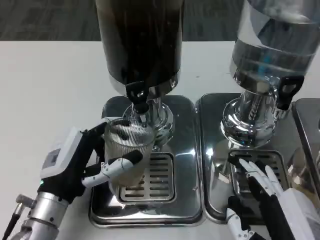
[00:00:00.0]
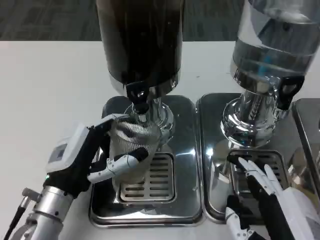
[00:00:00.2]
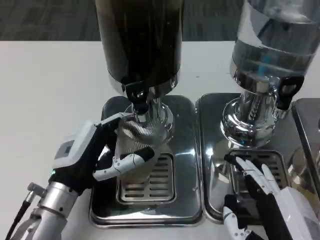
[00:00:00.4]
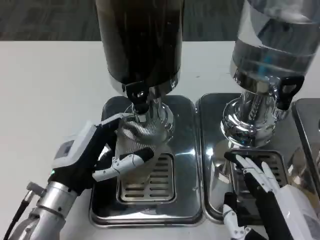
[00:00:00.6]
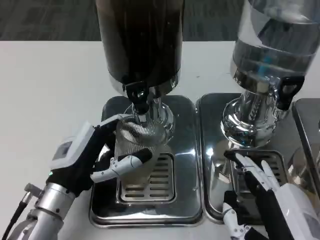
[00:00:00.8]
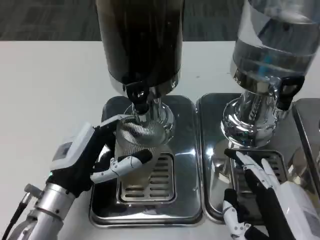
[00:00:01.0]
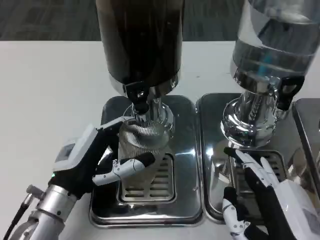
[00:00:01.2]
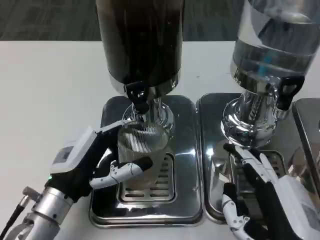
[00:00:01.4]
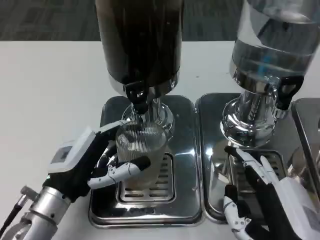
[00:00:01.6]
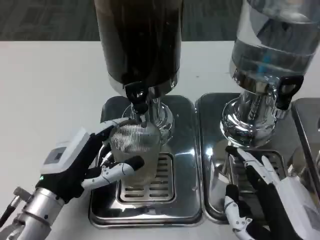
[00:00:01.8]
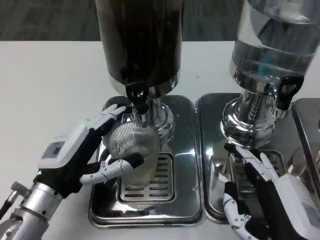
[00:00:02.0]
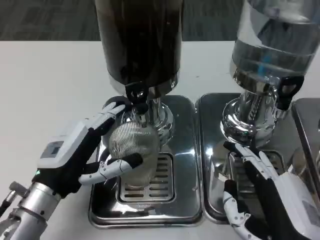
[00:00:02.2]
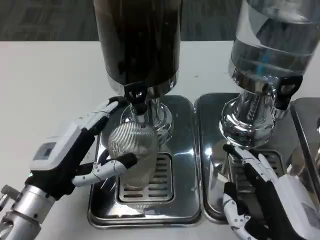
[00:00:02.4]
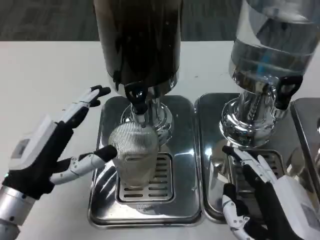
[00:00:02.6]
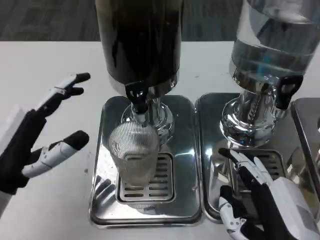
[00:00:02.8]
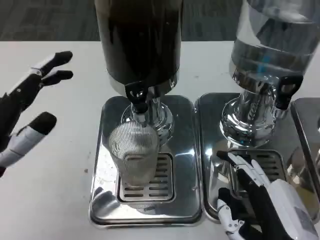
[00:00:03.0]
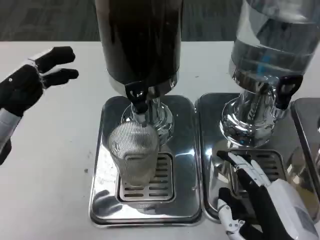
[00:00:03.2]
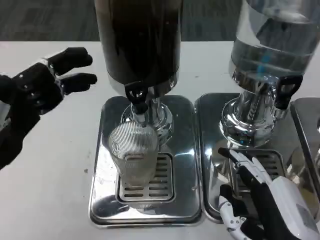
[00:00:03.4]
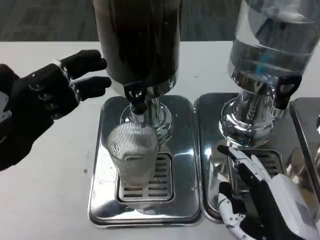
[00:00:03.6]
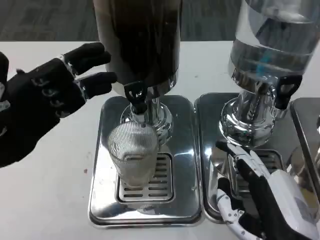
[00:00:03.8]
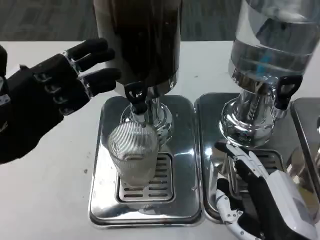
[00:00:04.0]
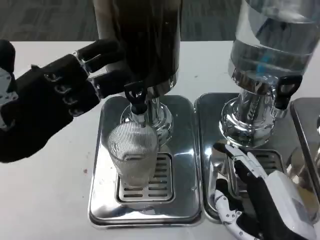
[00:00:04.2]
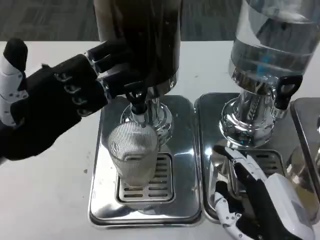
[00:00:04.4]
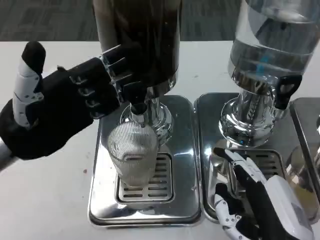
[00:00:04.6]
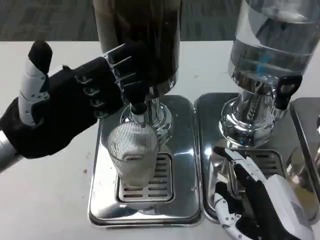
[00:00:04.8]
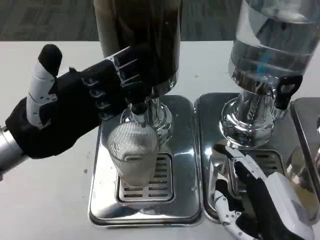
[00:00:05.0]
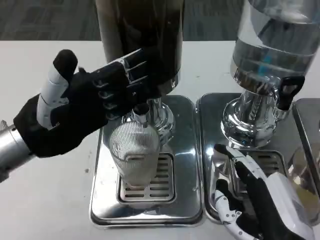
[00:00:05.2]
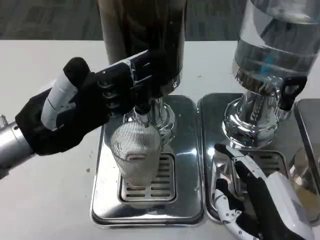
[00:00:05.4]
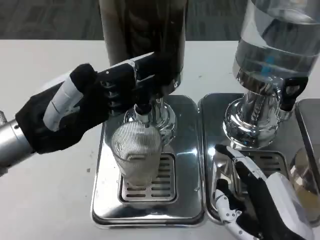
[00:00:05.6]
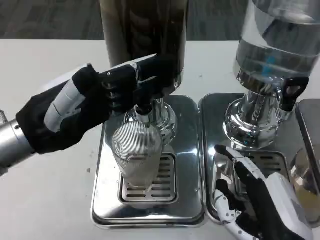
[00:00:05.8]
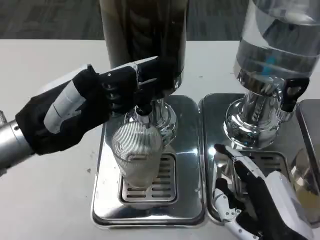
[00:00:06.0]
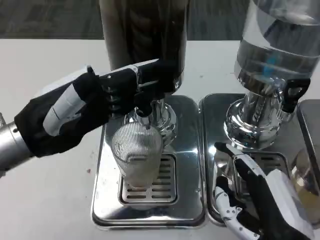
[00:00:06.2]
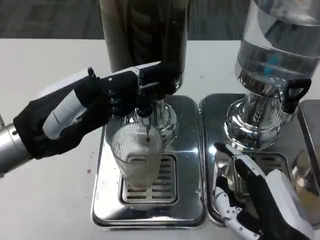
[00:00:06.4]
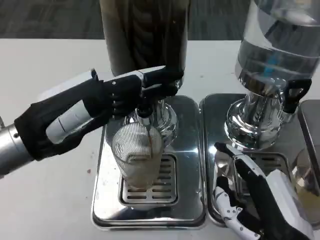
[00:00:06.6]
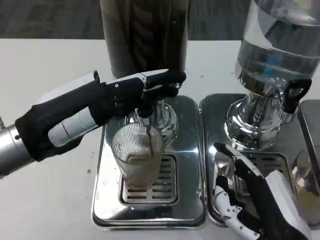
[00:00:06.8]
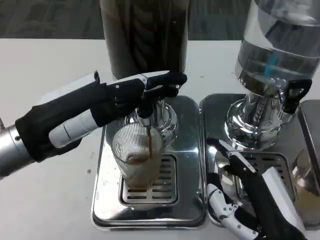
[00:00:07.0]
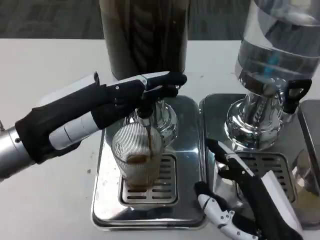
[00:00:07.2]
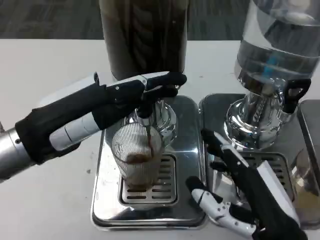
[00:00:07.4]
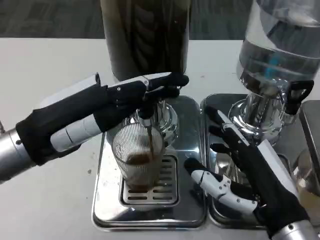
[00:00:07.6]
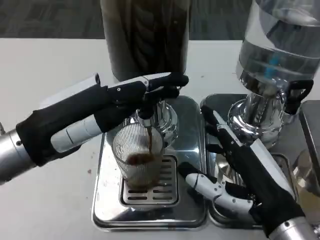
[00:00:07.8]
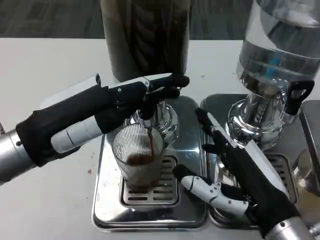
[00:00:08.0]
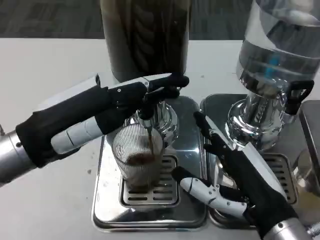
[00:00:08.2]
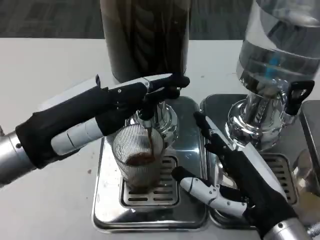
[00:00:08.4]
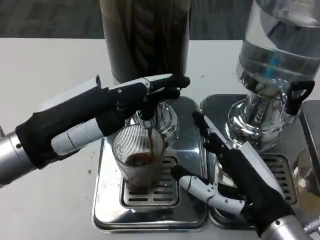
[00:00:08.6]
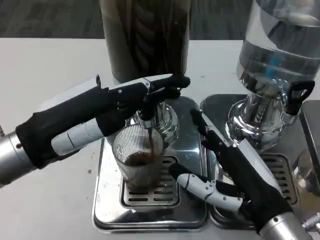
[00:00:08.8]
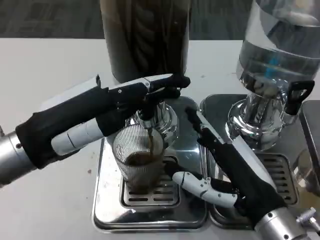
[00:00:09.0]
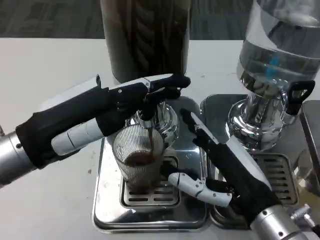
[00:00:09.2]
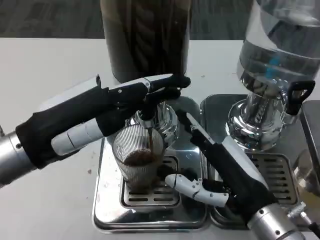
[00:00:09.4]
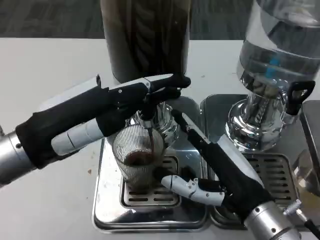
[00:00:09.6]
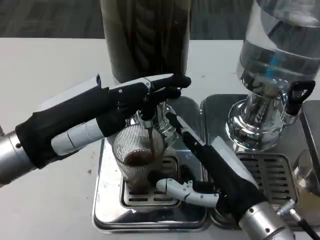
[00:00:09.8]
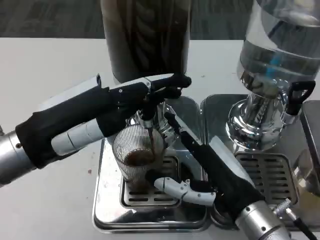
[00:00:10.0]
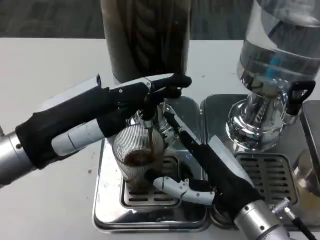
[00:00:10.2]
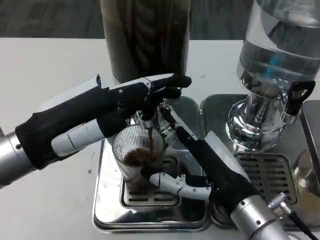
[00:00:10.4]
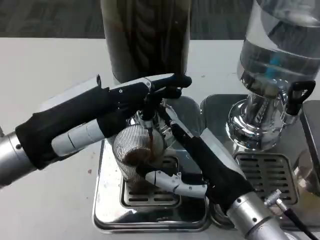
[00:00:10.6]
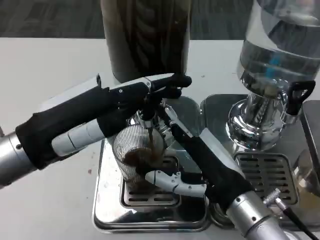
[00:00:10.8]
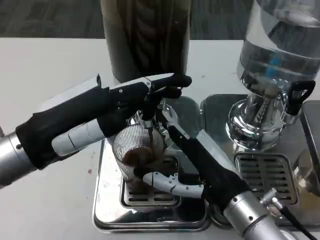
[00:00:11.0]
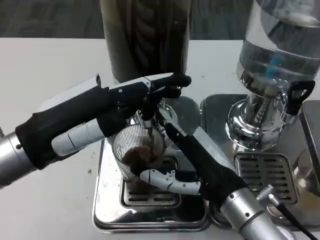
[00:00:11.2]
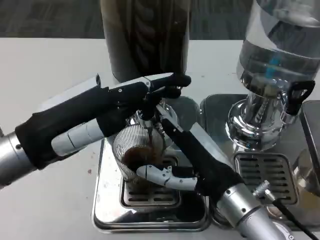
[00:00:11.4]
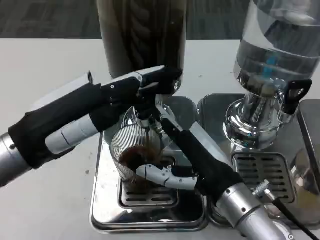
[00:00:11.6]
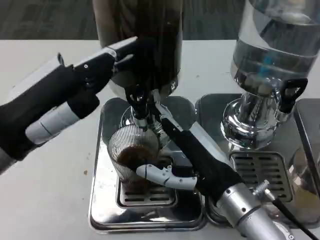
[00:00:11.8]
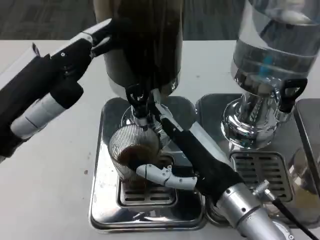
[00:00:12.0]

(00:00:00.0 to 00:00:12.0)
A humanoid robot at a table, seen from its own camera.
Task of the whole recording: Grasp the cup under the faucet to collect the drink, then remove the cup.
00:00:00.0 - 00:00:01.6: The hands stay close to where they were, moving slightly.
00:00:01.6 - 00:00:03.0: The left hand goes some 10 cm upward and to the left.
00:00:03.0 - 00:00:04.4: The left hand goes roughly 5 cm forward.
00:00:07.6 - 00:00:10.4: There are only small adjustments of the hands.

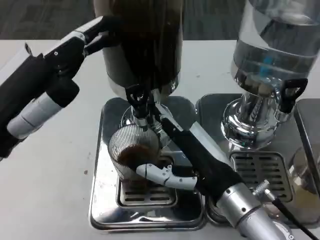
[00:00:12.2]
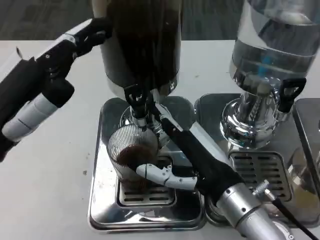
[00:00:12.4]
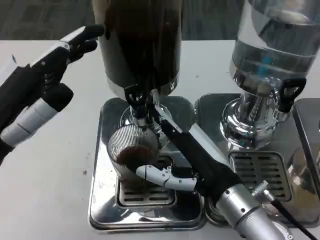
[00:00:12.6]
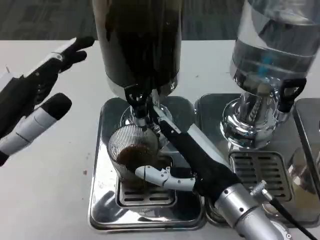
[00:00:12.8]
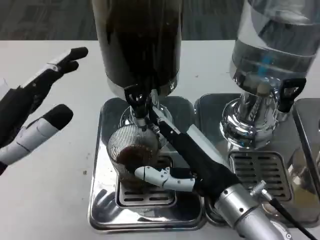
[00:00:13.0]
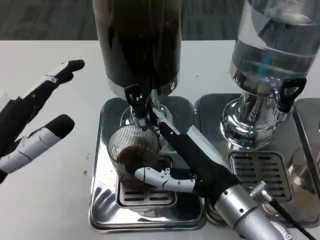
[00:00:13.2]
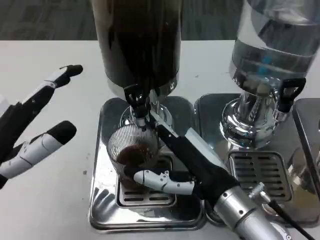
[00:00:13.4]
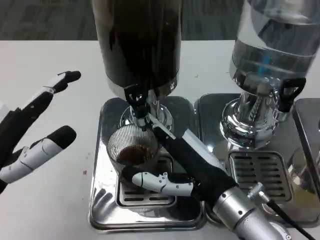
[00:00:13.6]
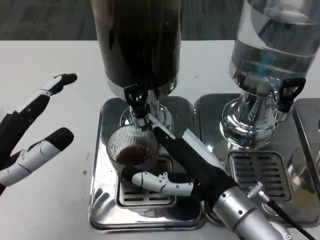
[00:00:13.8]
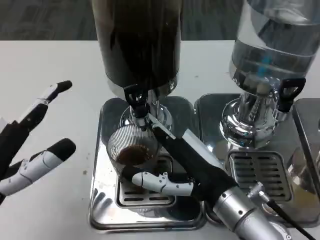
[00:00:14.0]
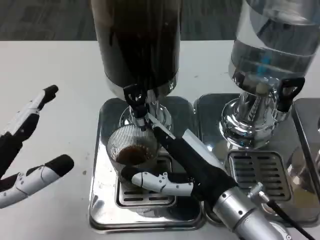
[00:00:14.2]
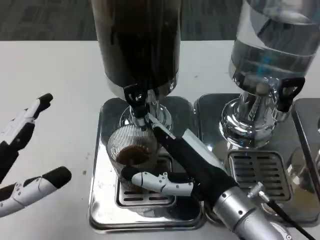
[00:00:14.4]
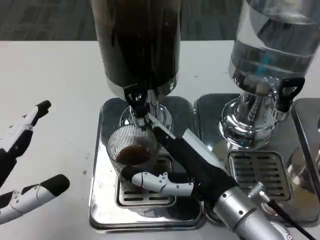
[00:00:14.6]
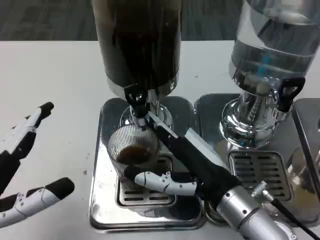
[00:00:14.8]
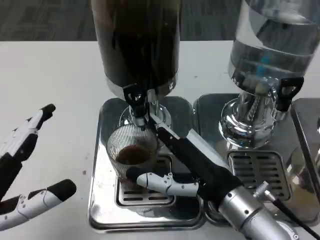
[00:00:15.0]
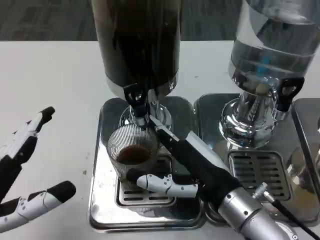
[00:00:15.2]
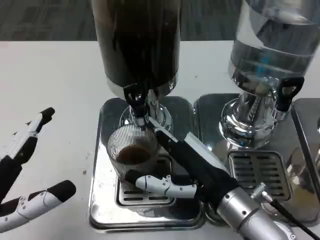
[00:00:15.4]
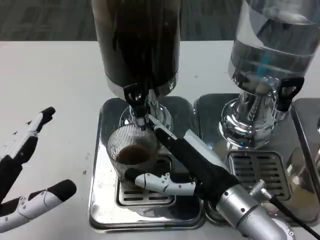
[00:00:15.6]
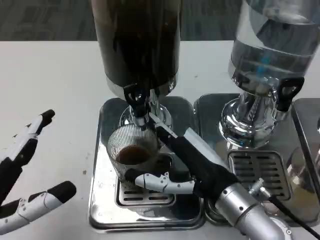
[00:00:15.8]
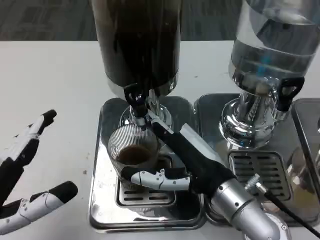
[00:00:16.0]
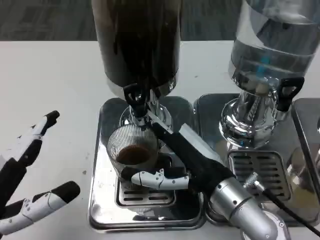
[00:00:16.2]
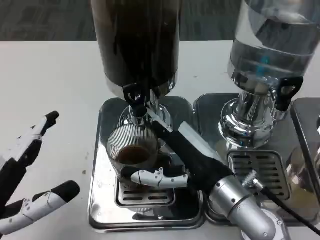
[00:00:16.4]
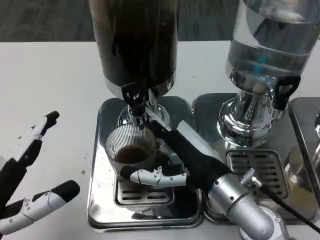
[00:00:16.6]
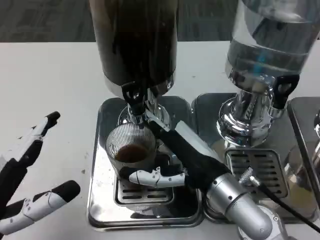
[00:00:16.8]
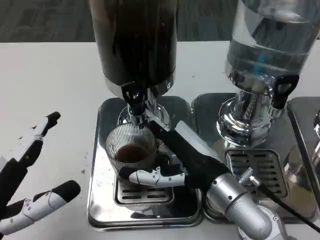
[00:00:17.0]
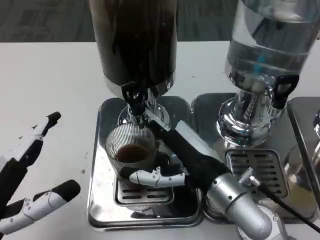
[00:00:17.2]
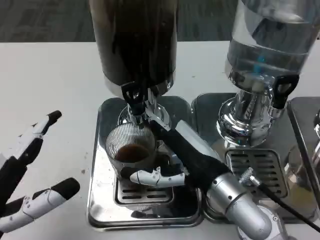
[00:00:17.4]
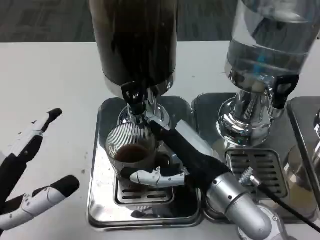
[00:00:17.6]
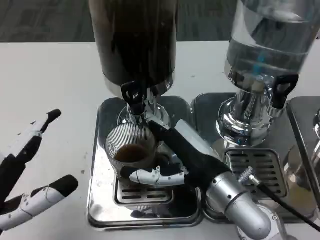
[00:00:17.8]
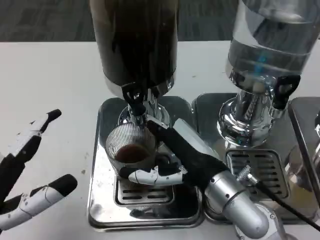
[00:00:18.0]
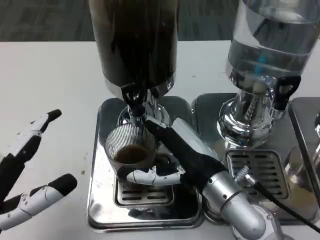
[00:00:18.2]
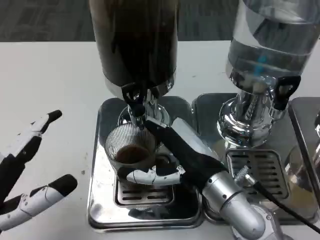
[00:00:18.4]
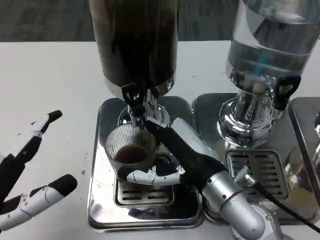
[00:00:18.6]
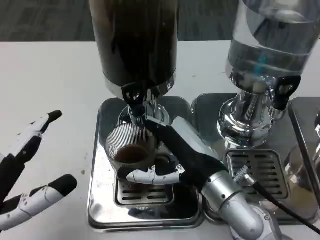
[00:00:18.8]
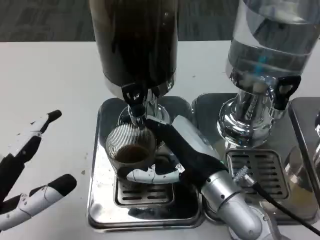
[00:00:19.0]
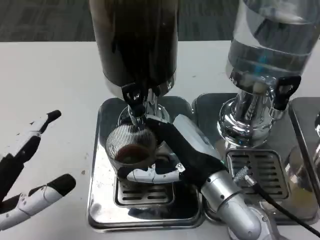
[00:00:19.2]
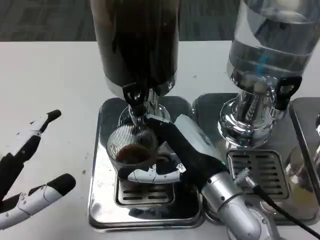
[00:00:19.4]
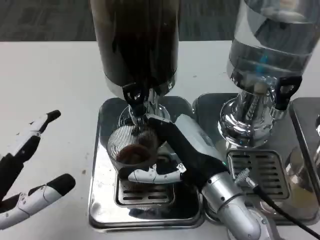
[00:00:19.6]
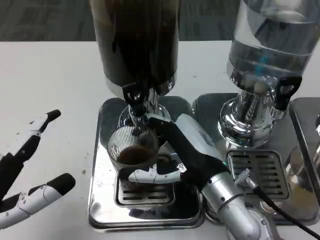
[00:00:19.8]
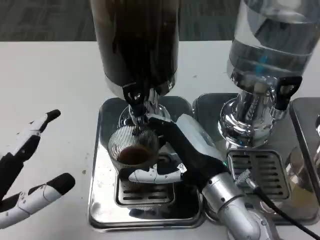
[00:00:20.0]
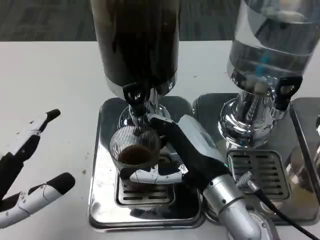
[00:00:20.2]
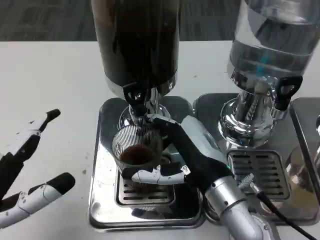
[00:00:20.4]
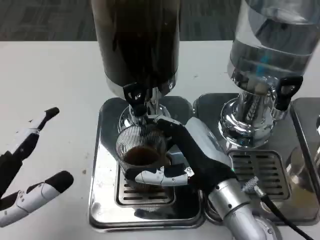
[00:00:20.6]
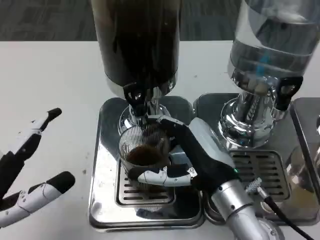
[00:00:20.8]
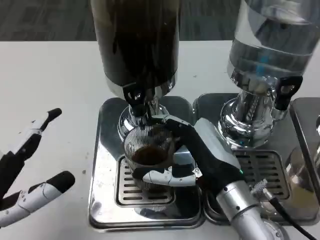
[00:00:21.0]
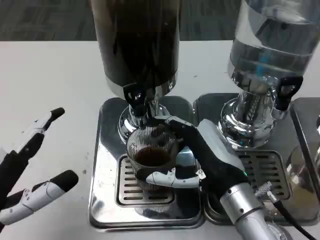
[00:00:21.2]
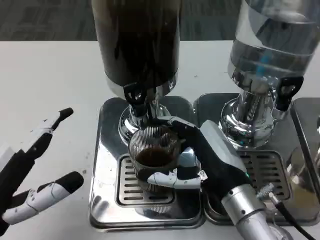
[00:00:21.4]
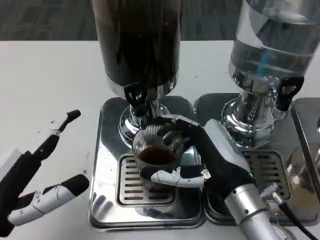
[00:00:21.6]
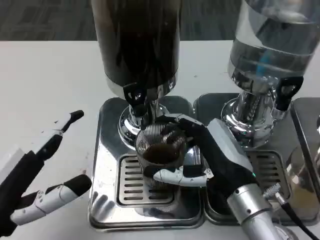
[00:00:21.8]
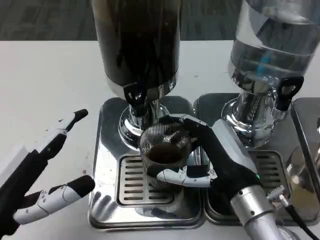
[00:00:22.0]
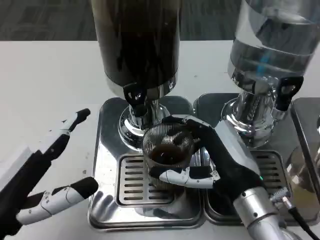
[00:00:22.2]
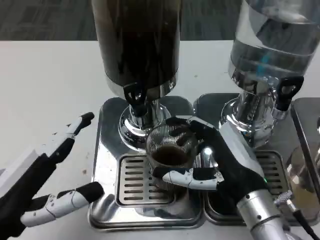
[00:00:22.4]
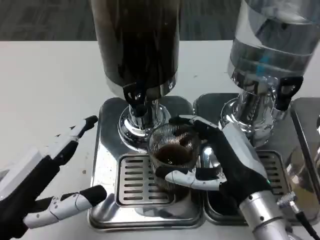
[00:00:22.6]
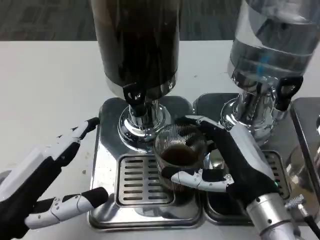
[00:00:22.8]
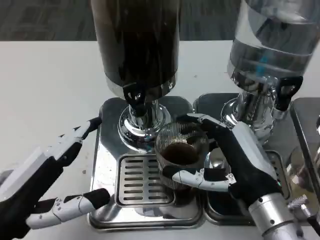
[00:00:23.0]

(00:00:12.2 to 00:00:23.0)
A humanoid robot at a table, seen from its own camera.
Task of the whole recording: Grasp the cup under the faucet to collect the drink, then remove the cup.
00:00:12.2 - 00:00:13.8: The left hand changes place by about 5 cm.
00:00:13.8 - 00:00:15.2: There are only small adjustments of the hands.
00:00:16.8 - 00:00:18.4: Neither hand changes place.
00:00:18.4 - 00:00:20.0: The hands make only small movements.
